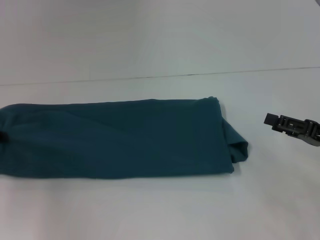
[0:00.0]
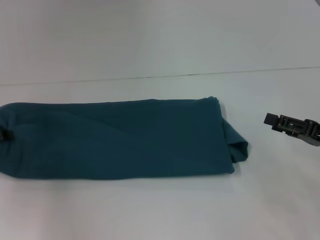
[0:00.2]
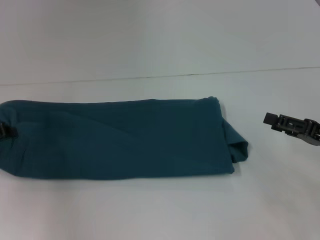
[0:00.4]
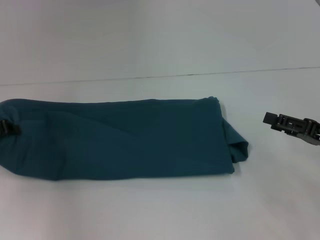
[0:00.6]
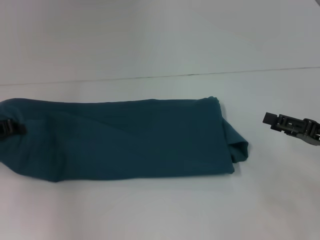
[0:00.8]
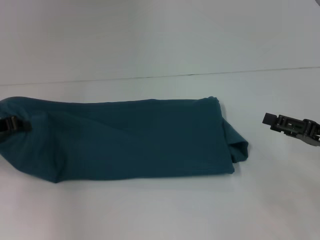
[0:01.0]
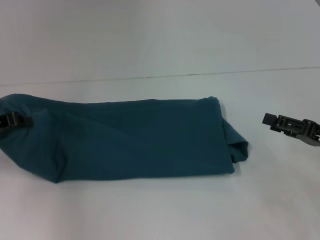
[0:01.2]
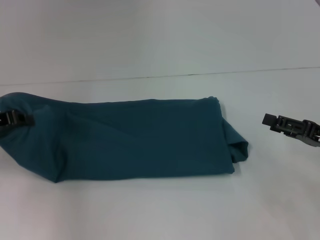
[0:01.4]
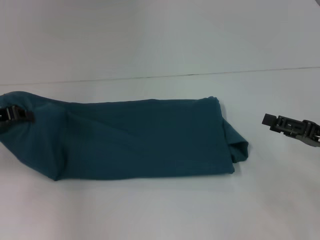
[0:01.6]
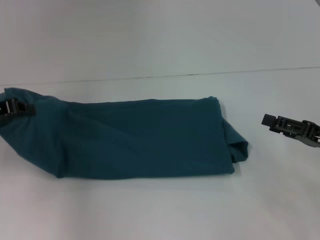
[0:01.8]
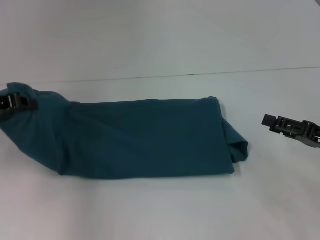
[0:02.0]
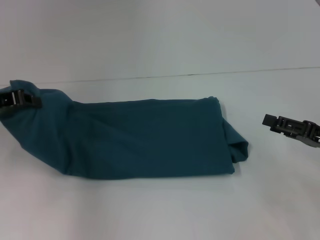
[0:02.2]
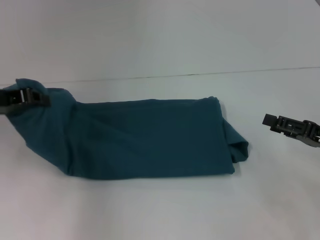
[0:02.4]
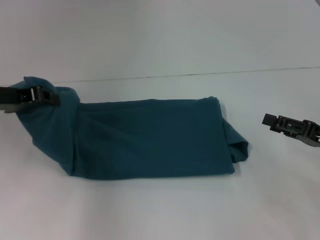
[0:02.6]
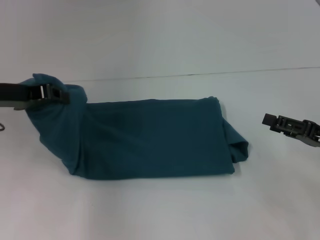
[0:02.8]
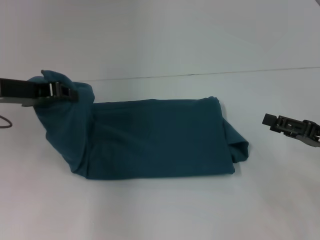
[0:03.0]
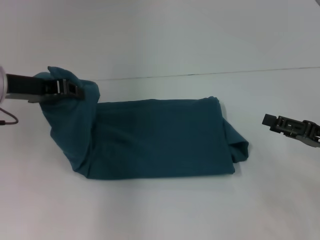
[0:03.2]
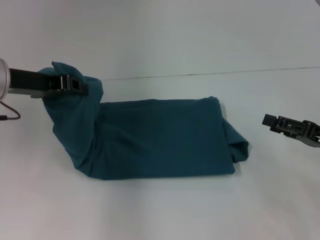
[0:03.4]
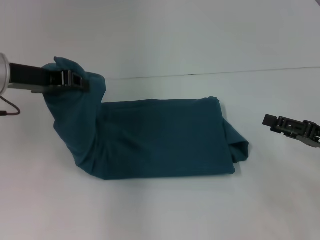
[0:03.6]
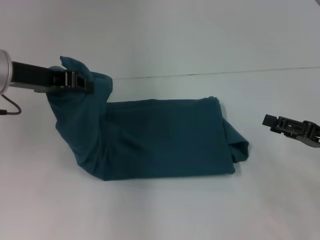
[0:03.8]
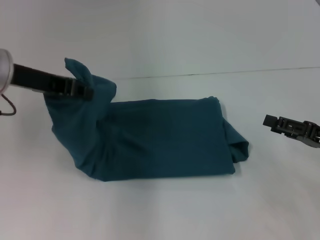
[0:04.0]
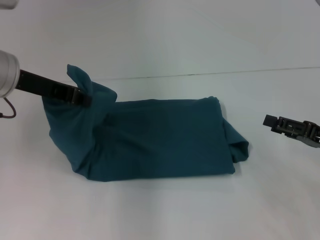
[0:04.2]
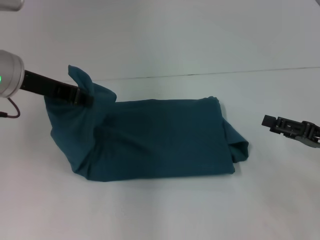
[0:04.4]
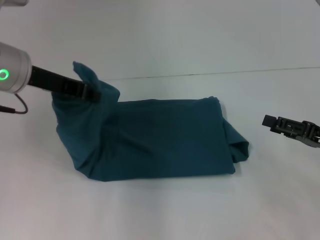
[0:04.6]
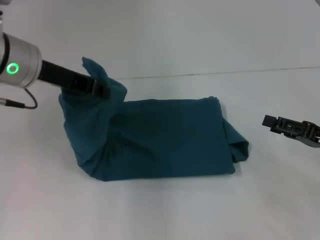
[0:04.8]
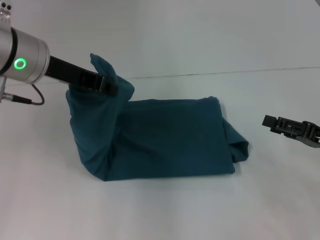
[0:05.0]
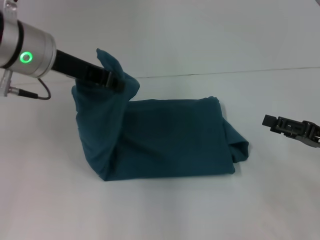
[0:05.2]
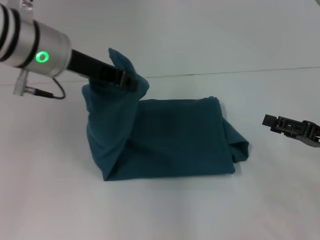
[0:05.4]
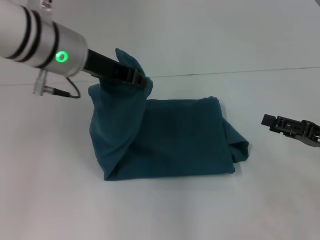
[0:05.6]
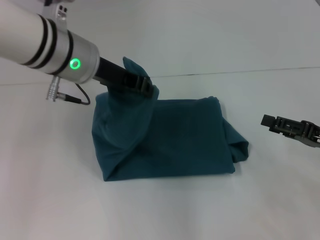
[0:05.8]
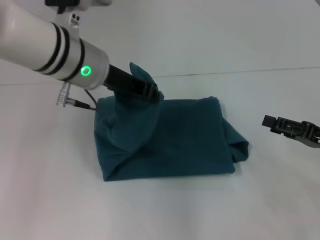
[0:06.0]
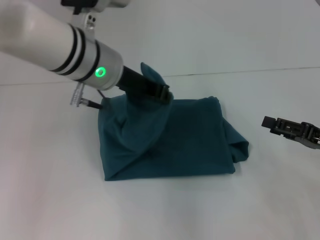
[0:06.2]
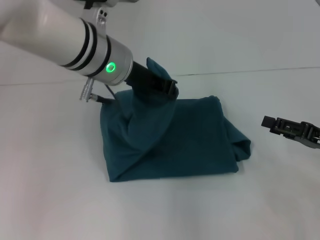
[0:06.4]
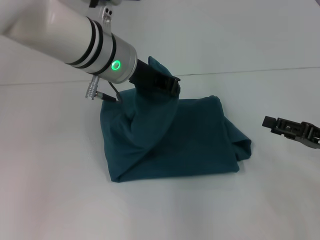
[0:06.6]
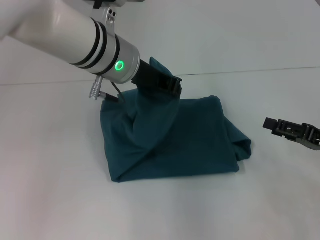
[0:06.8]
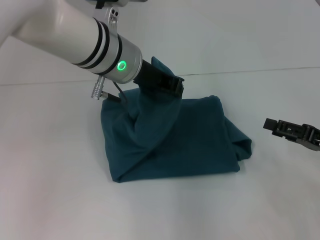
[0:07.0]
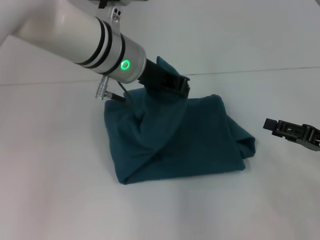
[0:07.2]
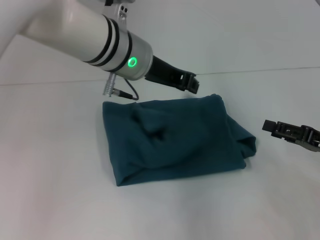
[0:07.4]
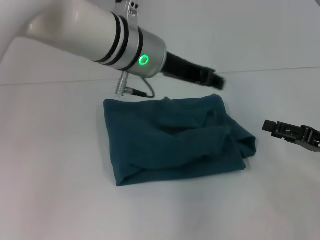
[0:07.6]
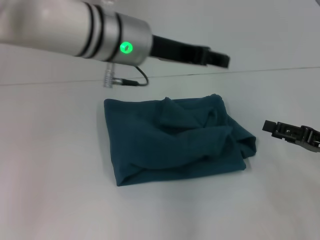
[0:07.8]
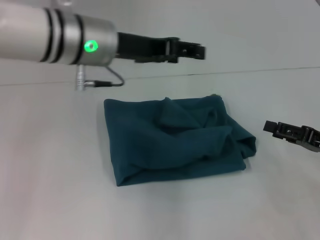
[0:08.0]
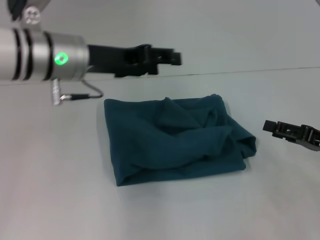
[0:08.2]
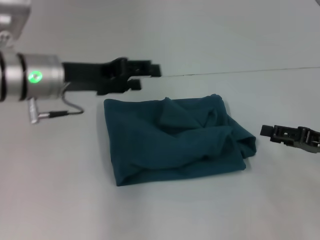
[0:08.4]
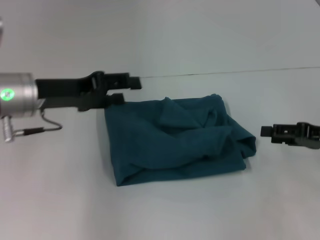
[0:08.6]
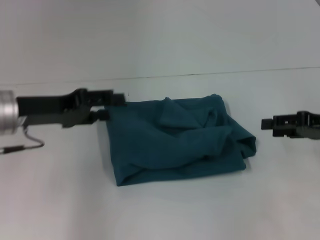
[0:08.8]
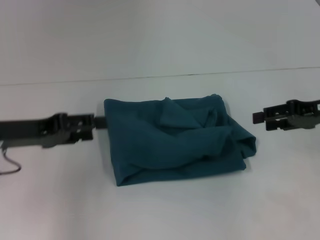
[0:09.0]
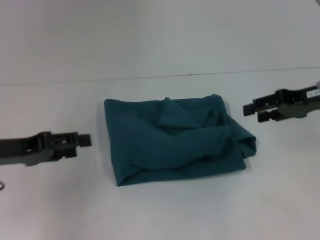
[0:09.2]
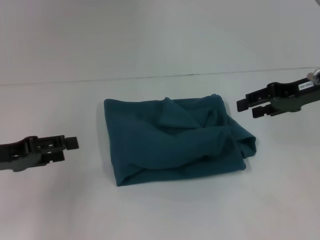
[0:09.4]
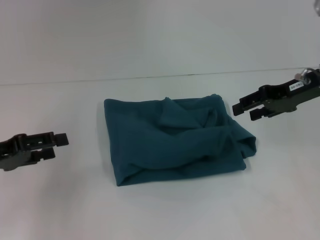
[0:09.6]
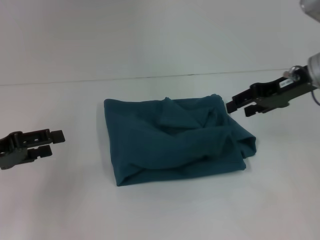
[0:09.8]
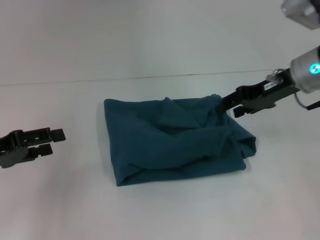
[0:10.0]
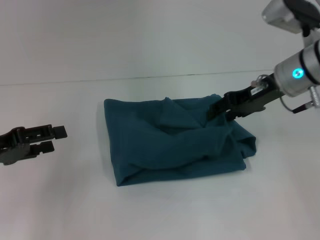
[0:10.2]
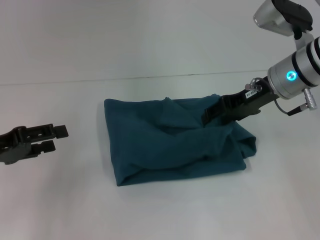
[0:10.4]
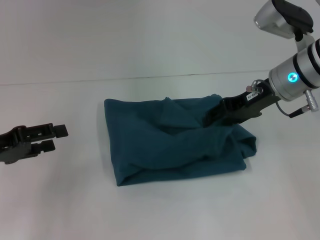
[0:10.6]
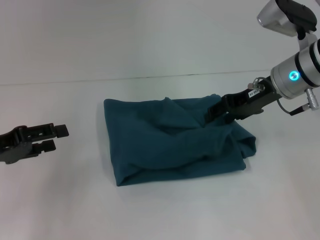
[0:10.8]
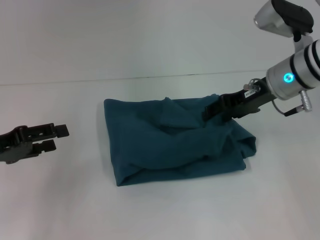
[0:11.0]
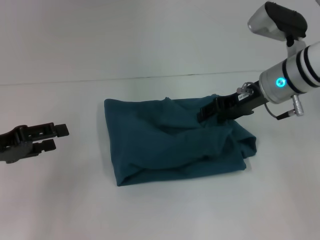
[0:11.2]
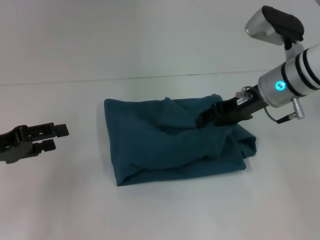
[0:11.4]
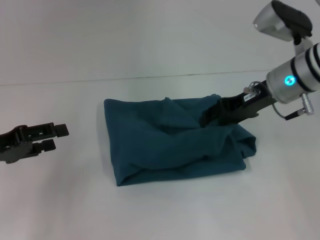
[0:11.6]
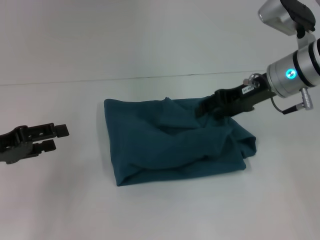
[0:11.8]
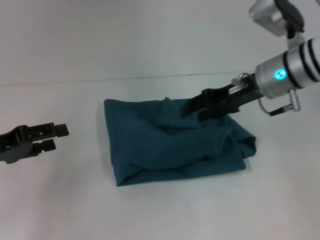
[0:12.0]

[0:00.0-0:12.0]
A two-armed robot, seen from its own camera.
Step, 0:00.0 to 0:08.2: Fold the clothes to the left.
0:00.0 to 0:01.6: The left gripper moves upward, about 5 cm.
0:01.6 to 0:03.0: The left gripper moves to the right, roughly 5 cm.
0:03.0 to 0:04.4: The left gripper changes place by approximately 5 cm.
0:04.4 to 0:06.0: The left gripper heads to the right, covering about 10 cm.
0:06.0 to 0:07.6: The left gripper heads to the right, covering approximately 5 cm.
0:07.6 to 0:09.0: The left gripper heads to the left, covering some 20 cm, and opens its fingers. The right gripper is displaced upward and forward by roughly 10 cm.
0:09.0 to 0:10.4: The right gripper heads to the left and forward, covering roughly 15 cm. Meanwhile the left gripper is displaced to the left by about 5 cm.
0:10.4 to 0:12.0: The grippers make only small movements.

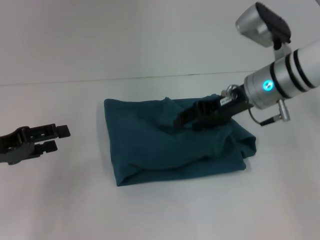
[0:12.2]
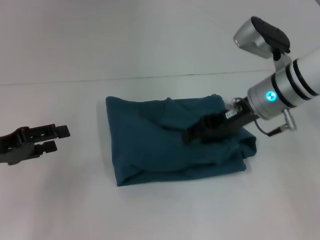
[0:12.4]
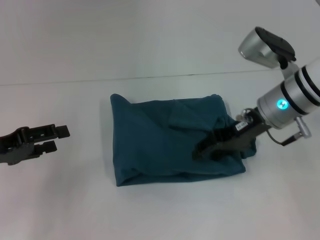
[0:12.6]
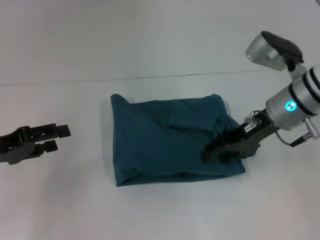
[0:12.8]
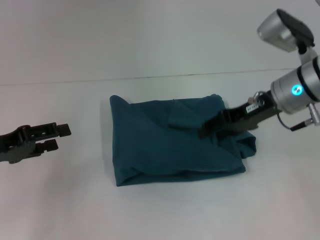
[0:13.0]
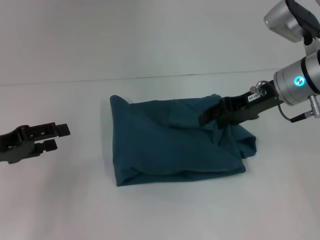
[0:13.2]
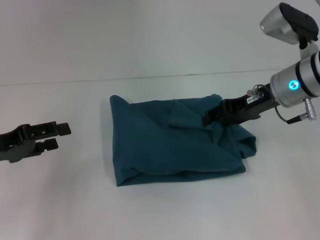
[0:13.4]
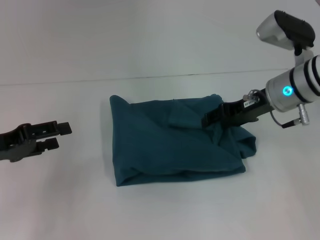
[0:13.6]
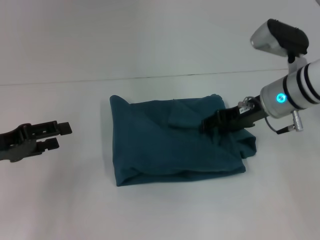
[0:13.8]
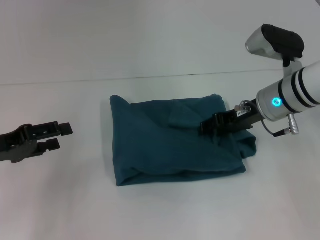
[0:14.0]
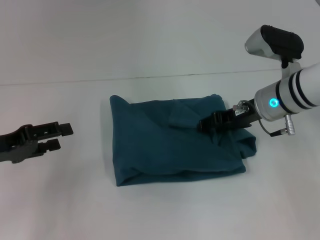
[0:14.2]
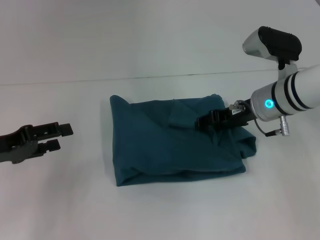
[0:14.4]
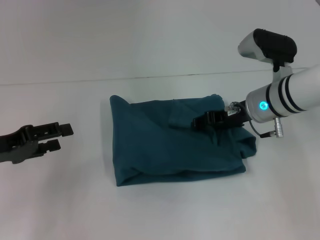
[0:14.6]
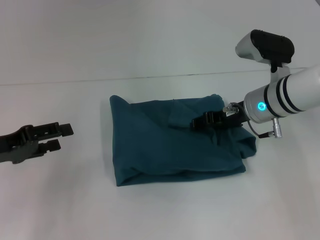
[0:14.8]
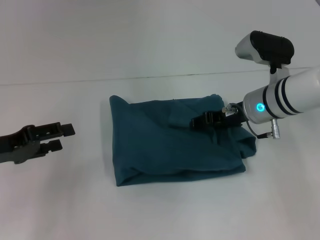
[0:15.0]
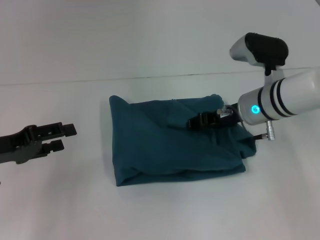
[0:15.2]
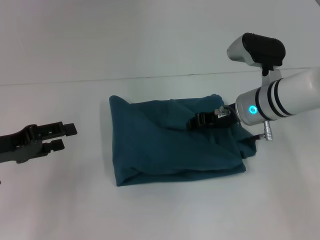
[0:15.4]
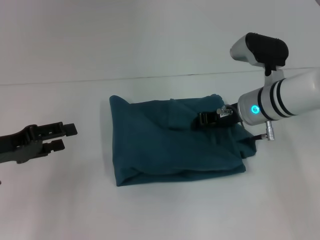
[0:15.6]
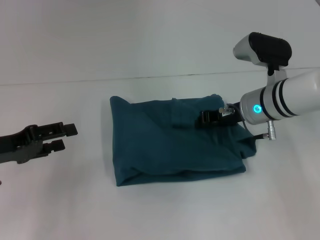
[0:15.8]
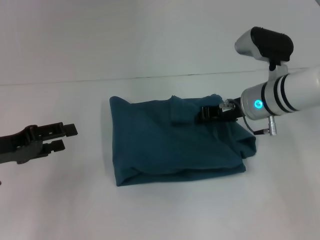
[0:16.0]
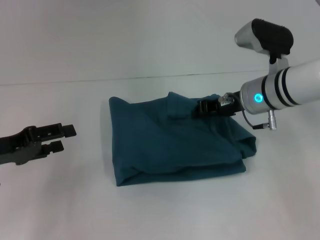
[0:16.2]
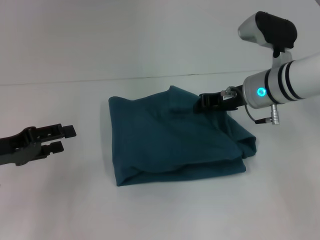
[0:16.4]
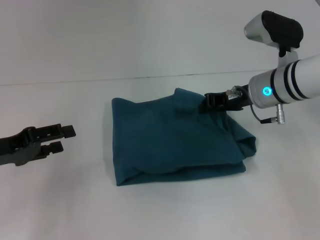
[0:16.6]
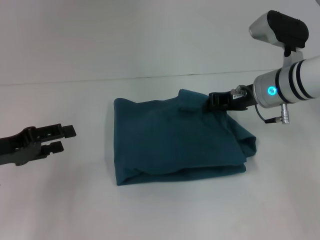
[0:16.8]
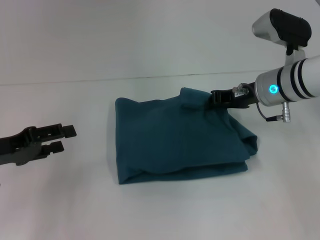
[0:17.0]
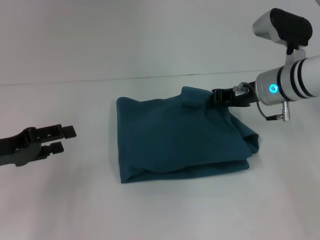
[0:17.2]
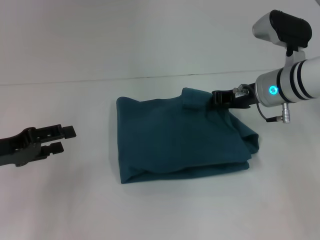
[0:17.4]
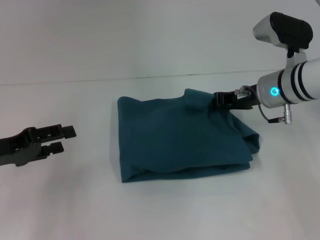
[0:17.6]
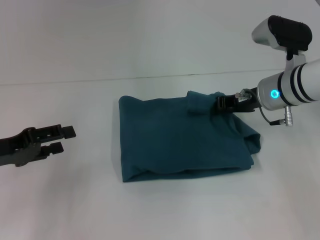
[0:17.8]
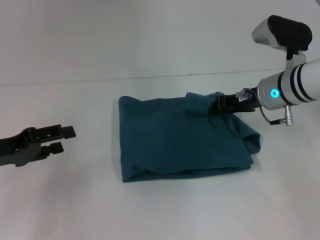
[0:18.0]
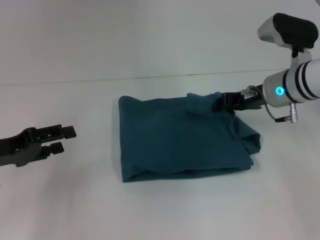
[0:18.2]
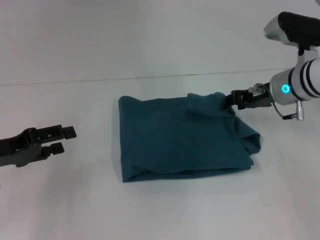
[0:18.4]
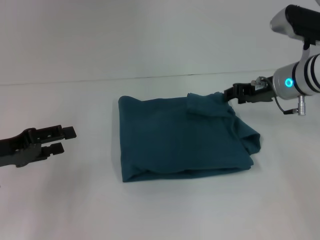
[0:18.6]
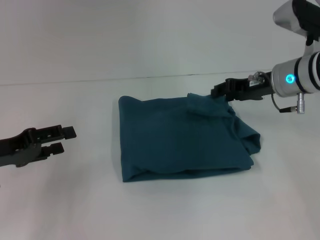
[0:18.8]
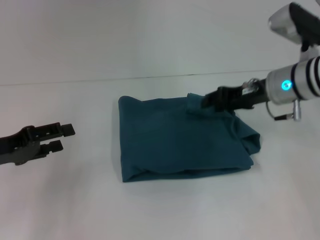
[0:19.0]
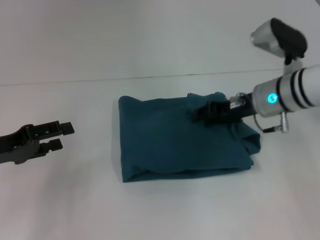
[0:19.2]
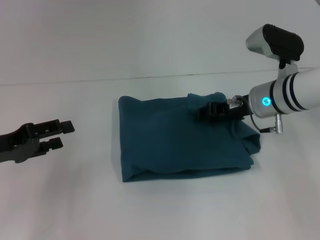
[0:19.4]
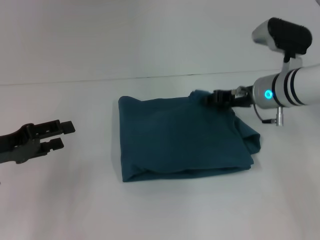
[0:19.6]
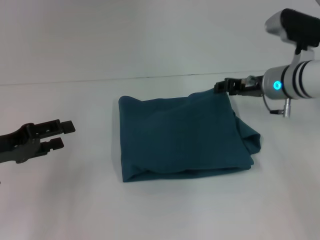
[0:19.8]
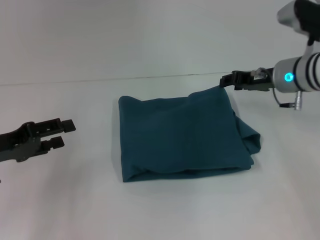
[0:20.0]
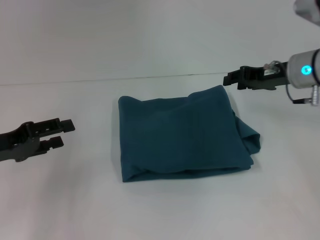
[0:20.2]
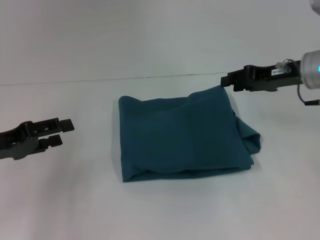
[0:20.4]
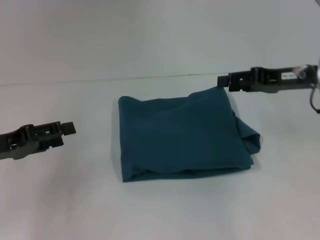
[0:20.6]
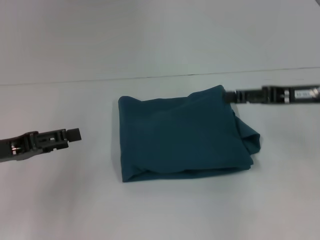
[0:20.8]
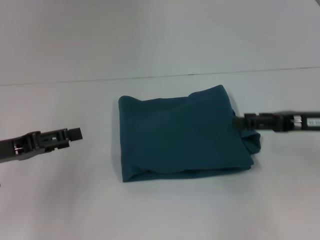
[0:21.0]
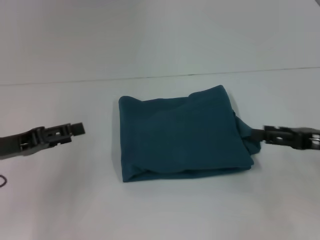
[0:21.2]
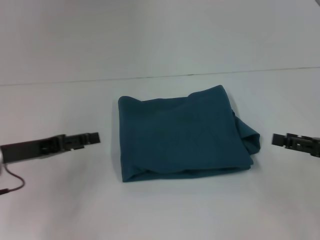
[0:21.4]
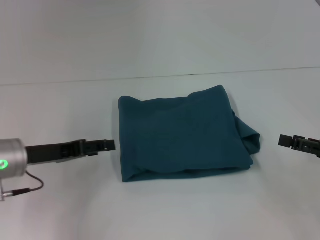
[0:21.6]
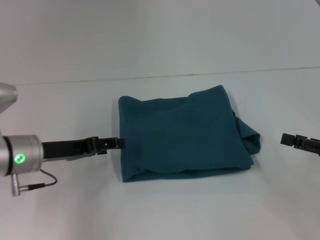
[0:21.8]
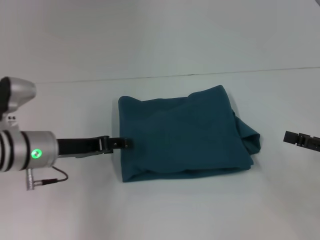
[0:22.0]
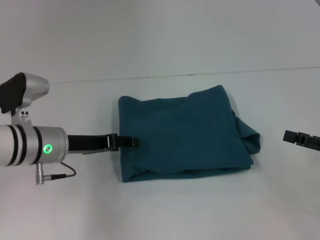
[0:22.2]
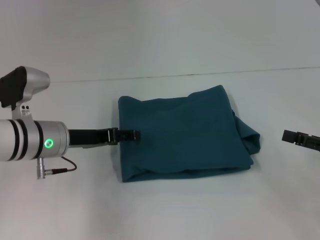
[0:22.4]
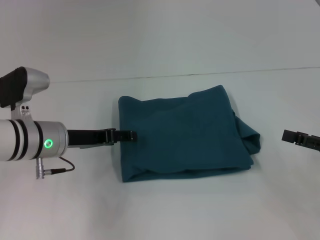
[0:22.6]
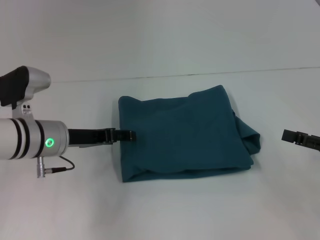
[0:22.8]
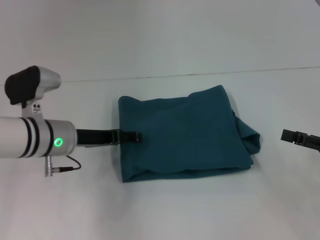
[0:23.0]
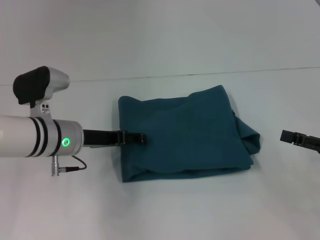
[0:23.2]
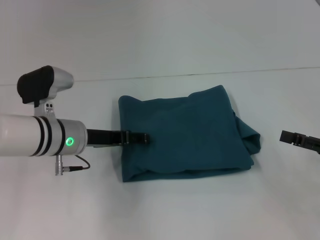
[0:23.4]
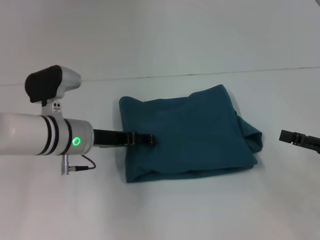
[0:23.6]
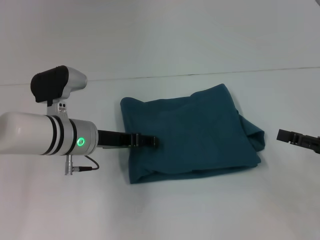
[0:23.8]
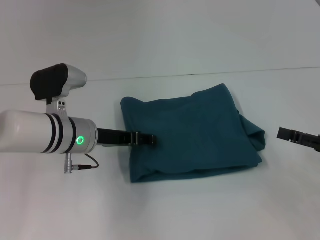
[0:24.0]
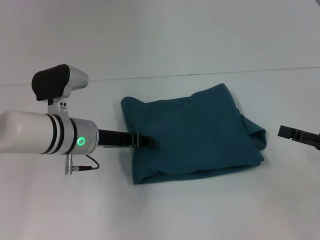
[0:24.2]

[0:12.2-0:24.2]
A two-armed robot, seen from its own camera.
0:12.2 to 0:15.2: The grippers move only a little.
0:15.2 to 0:16.6: The right gripper closes.
0:16.6 to 0:19.8: There are only small adjustments of the grippers.
0:19.8 to 0:21.2: The right gripper moves backward and to the right, about 20 cm, and opens.
0:21.2 to 0:22.6: The right gripper ends up some 5 cm from where it was; the left gripper is displaced to the right and forward by roughly 10 cm.
0:22.6 to 0:24.2: The grippers make only small movements.
